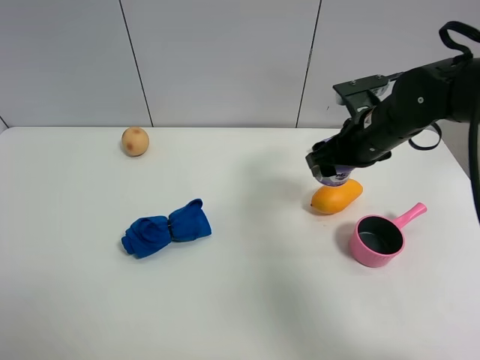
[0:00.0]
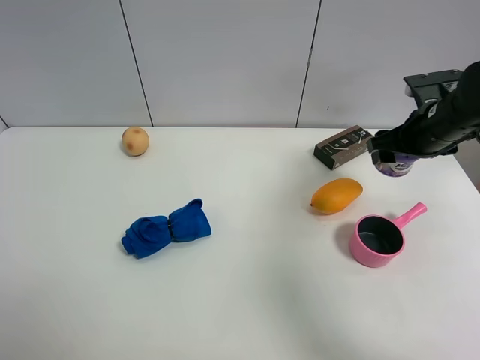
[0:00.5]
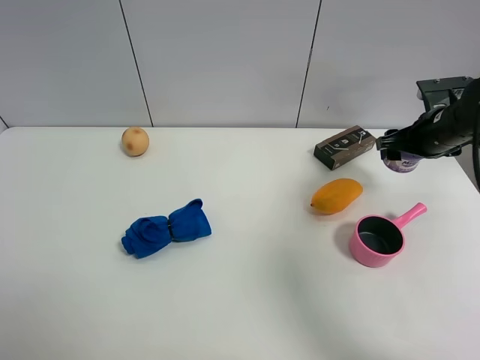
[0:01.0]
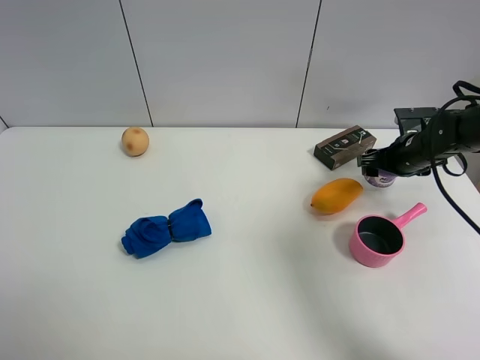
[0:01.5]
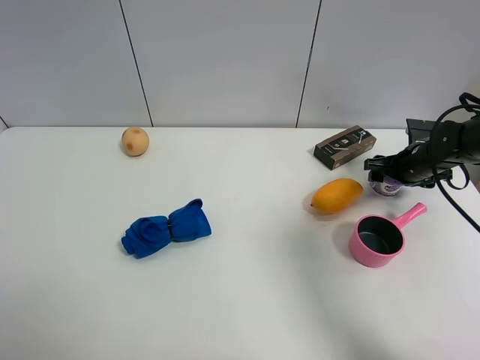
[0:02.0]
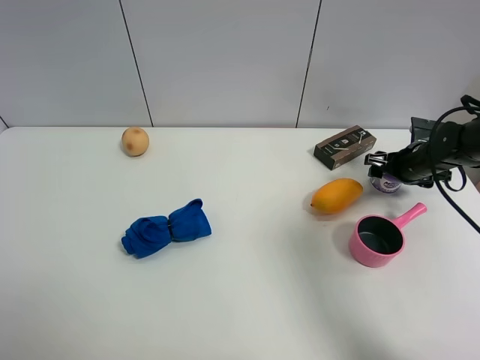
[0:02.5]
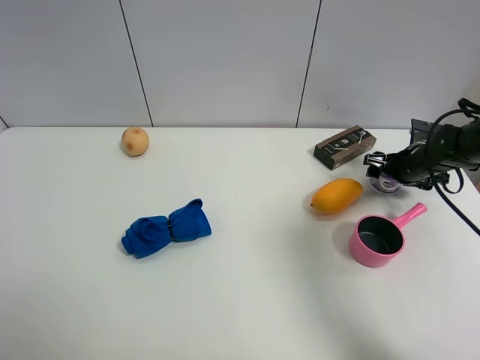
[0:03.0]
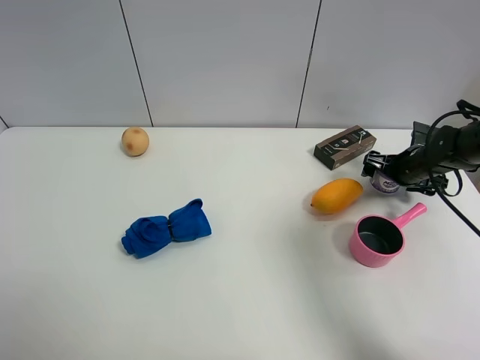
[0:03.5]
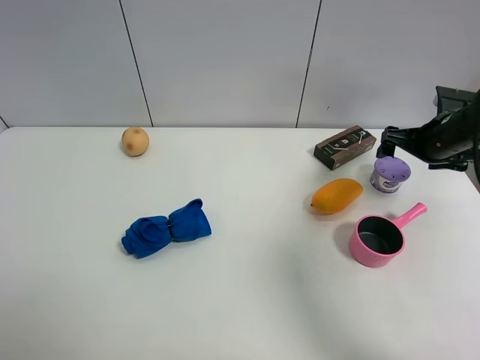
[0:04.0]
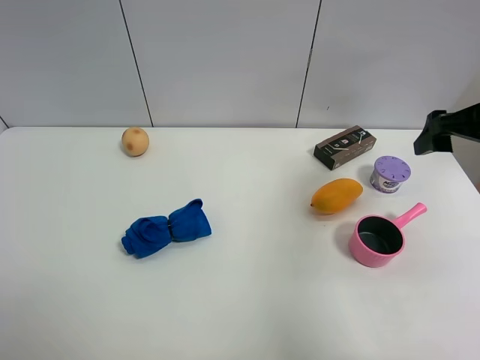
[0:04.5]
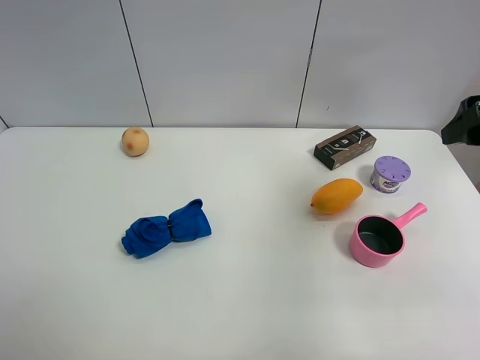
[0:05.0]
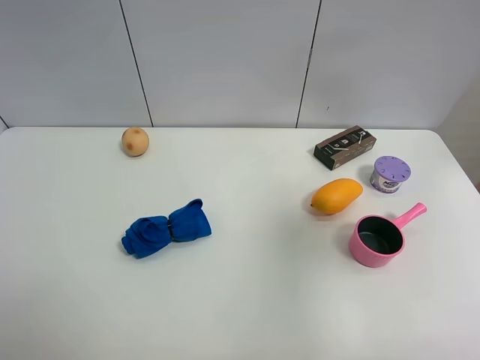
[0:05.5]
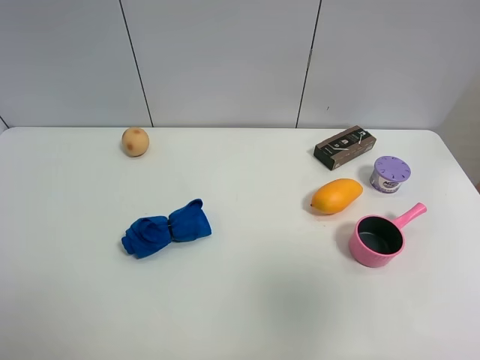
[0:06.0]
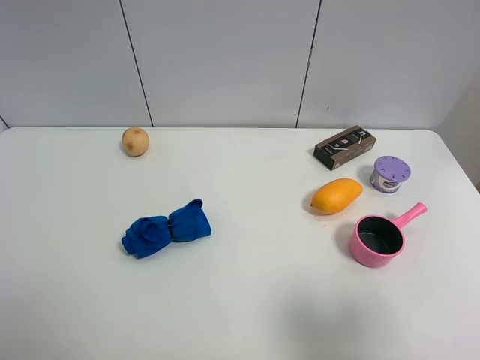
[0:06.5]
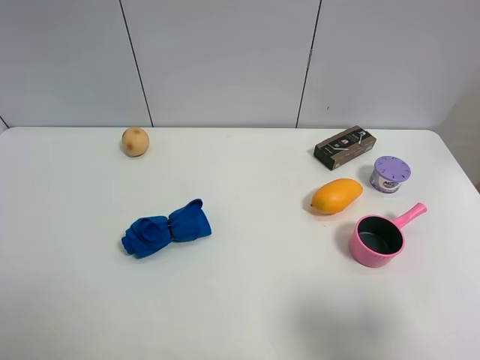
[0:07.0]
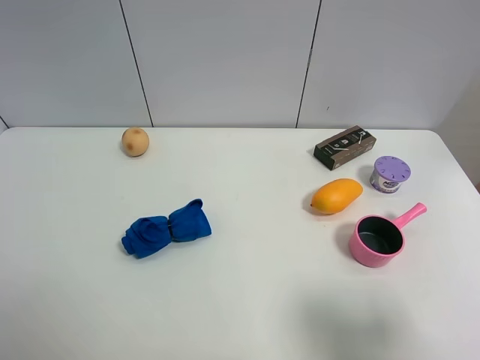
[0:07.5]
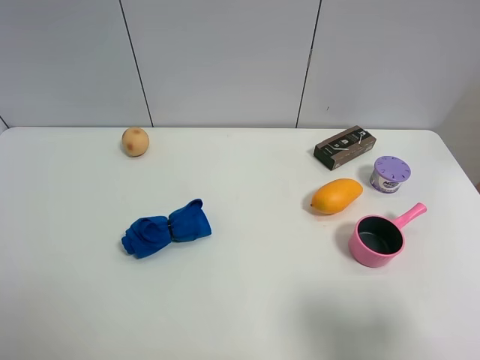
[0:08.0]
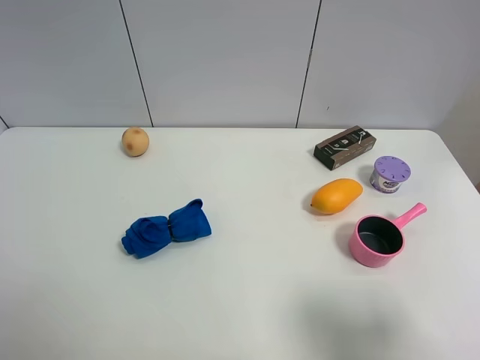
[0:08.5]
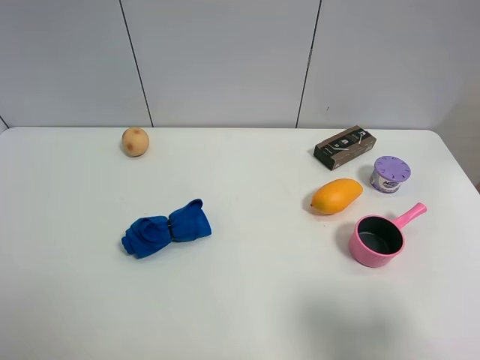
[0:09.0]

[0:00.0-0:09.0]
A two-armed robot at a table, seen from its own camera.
Task of the whole recording: the gripper move the object.
Step, 0:00.0 to 0:03.5: Place the Incense box on the table with the right gripper.
0:00.0 to 0:02.0: The right gripper shifts roughly 20 cm to the right, downward and forward.
0:02.0 to 0:04.5: The right gripper is displaced upward and backward by some 25 cm, and opens its fingers.
0:04.5 to 0:07.0: The right gripper moves backward, roughly 25 cm.

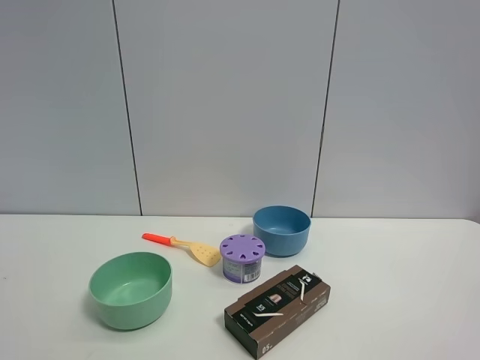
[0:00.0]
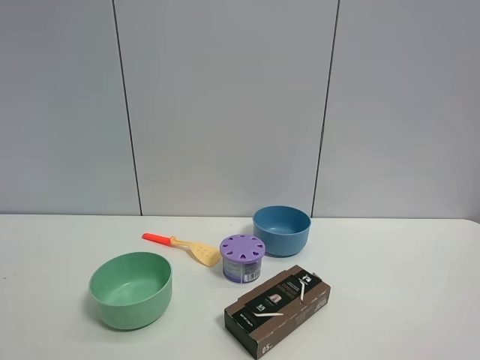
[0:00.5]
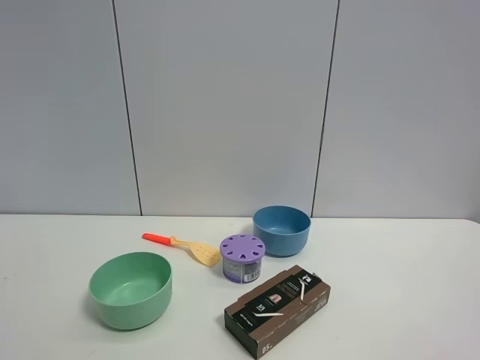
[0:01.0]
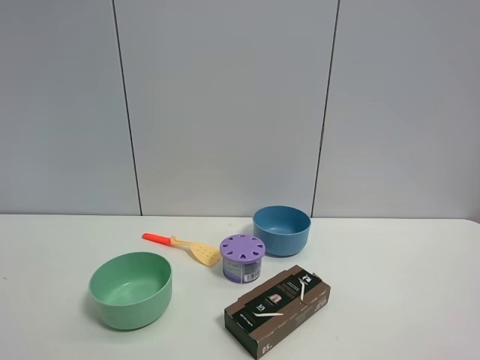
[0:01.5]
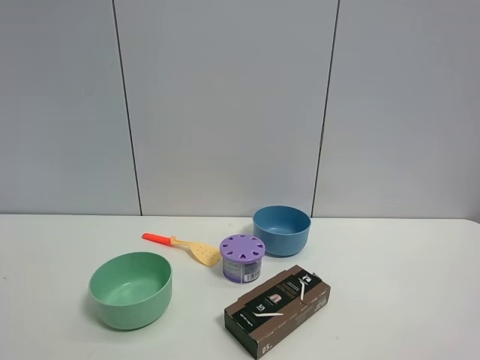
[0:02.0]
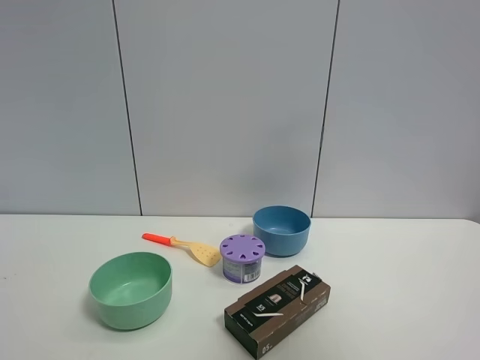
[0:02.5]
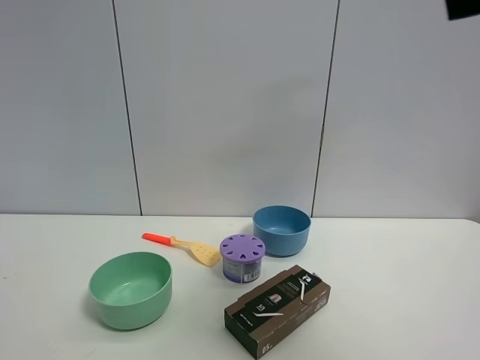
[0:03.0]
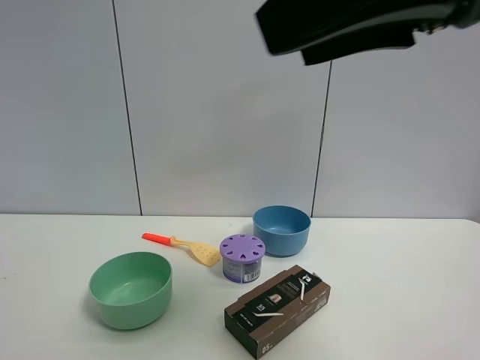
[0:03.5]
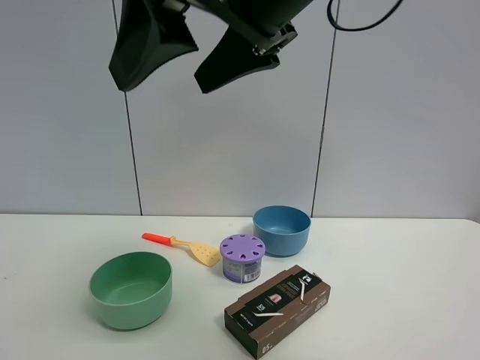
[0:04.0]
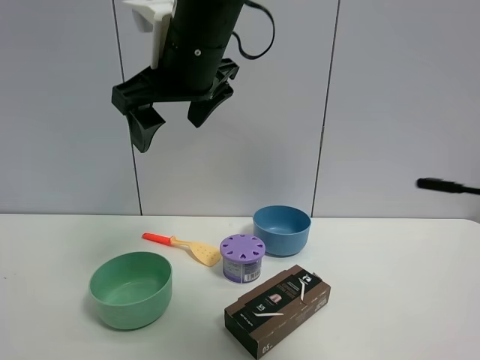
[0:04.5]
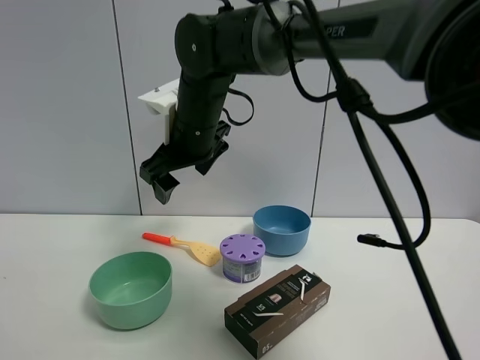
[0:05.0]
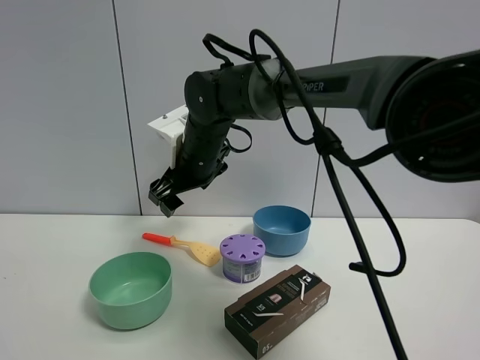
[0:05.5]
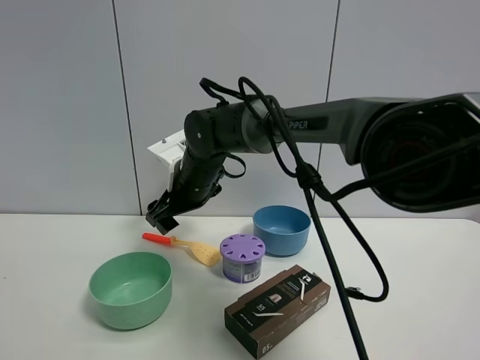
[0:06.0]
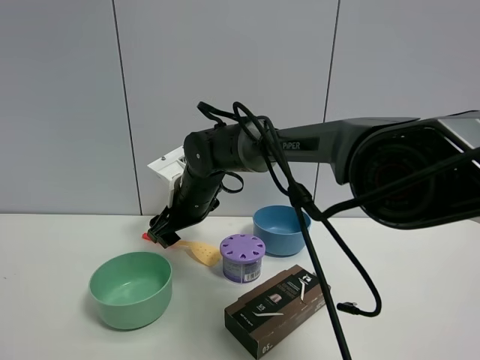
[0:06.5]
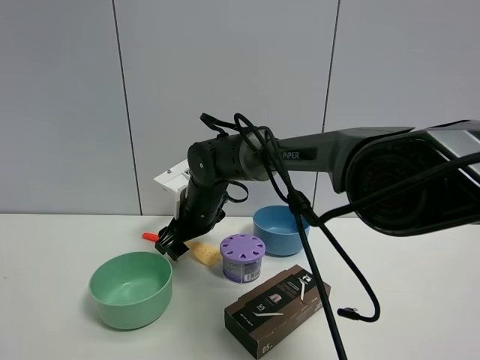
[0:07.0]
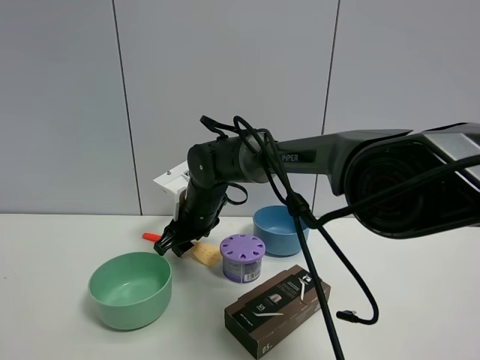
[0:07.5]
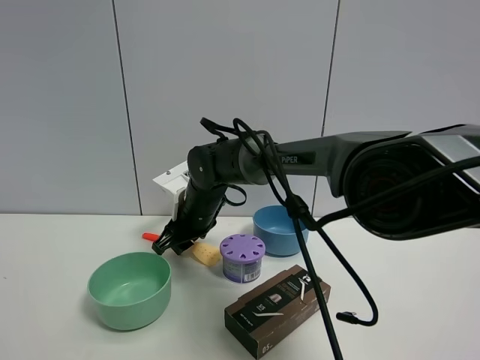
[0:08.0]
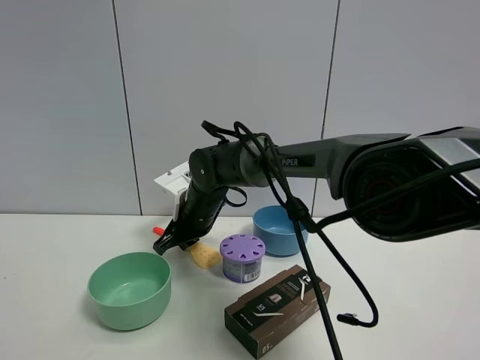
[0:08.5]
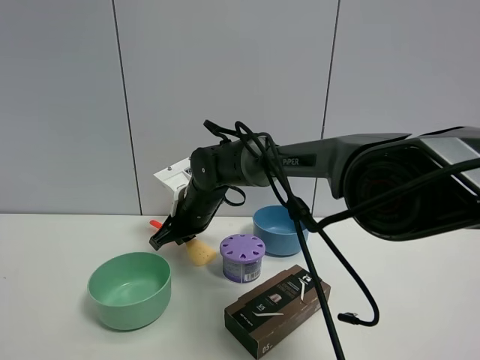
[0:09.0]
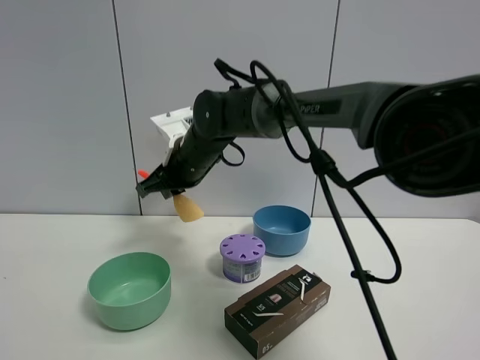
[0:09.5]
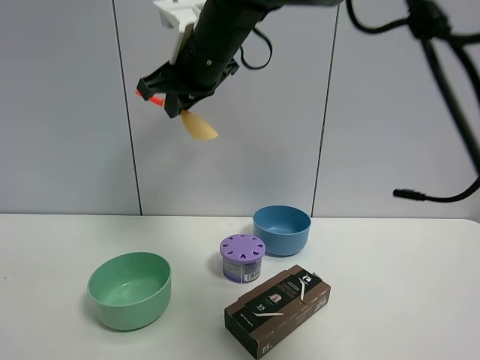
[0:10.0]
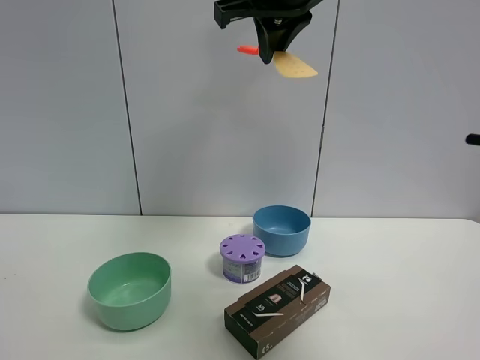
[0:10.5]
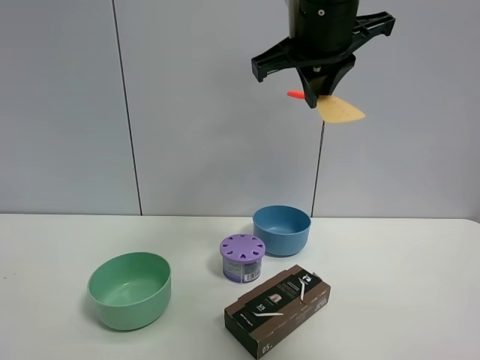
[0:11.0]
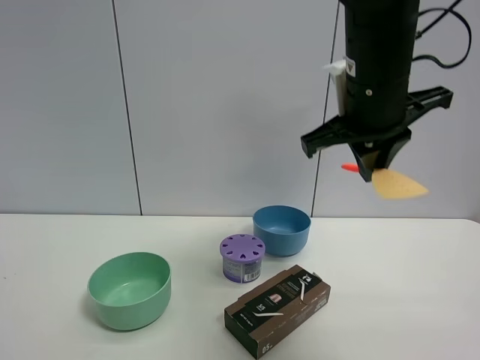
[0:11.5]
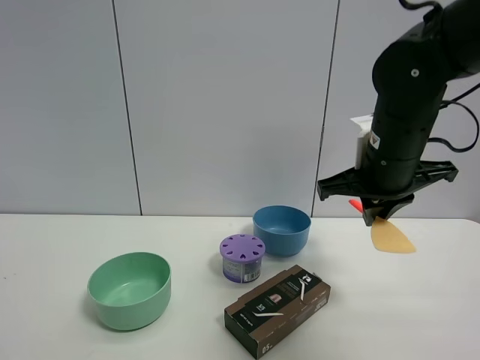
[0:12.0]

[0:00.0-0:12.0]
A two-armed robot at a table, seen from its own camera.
Task of the whole recording: the gripper move the object.
Step, 0:00.0 to 0:08.0: Grasp the cooking shovel with the right gripper.
0:02.0 to 0:04.0: The right gripper travels to the left and forward by some 35 cm.
0:04.0 to 0:06.0: The right gripper shifts roughly 30 cm downward, forward and to the left.
0:06.0 to 0:08.0: The right gripper closes.
0:08.0 to 0:10.0: The right gripper travels upward by about 25 cm, and closes up.
0:10.0 to 0:12.0: The right gripper heads to the right and downward, covering some 25 cm.

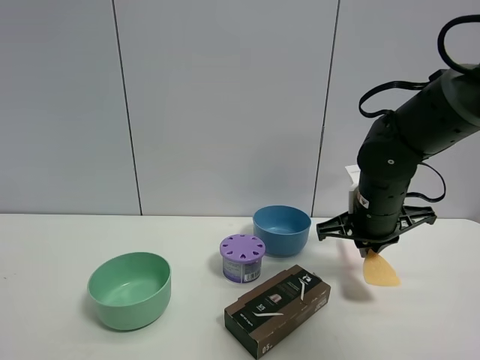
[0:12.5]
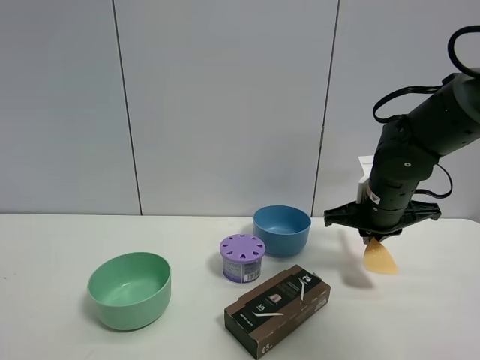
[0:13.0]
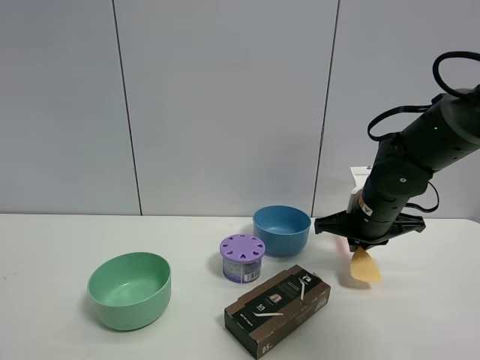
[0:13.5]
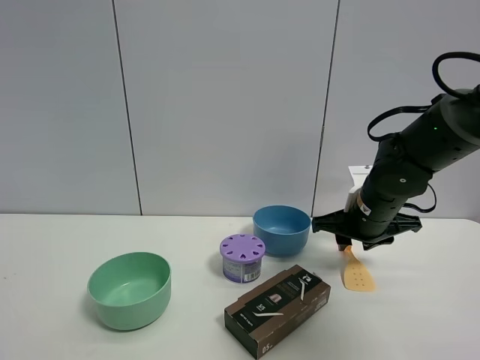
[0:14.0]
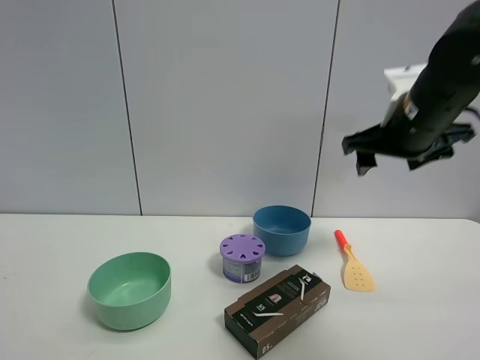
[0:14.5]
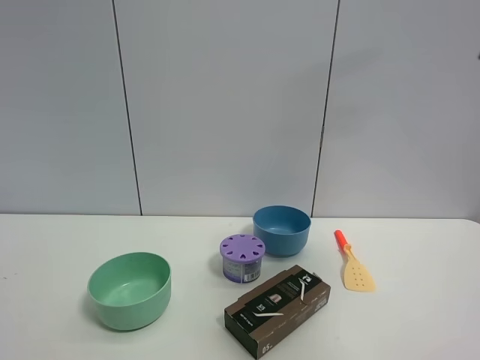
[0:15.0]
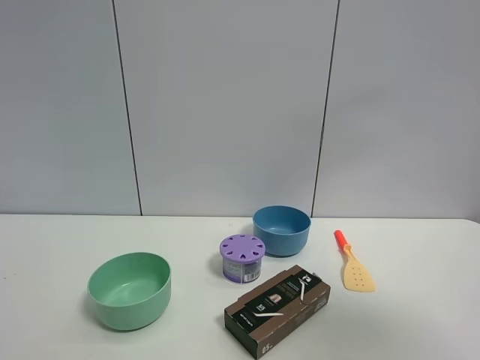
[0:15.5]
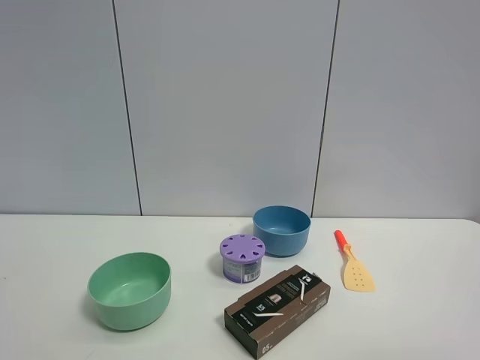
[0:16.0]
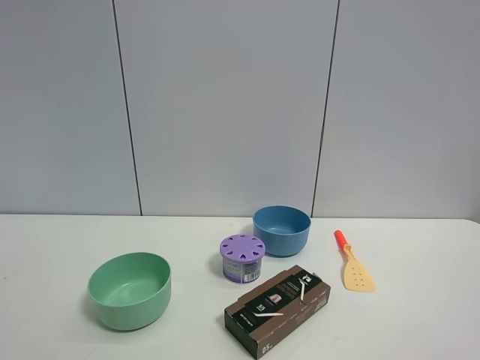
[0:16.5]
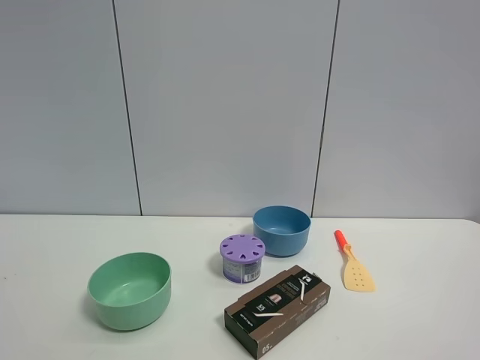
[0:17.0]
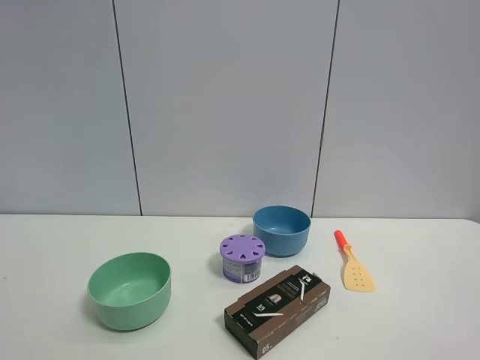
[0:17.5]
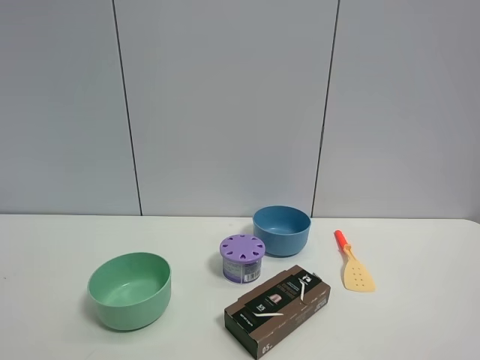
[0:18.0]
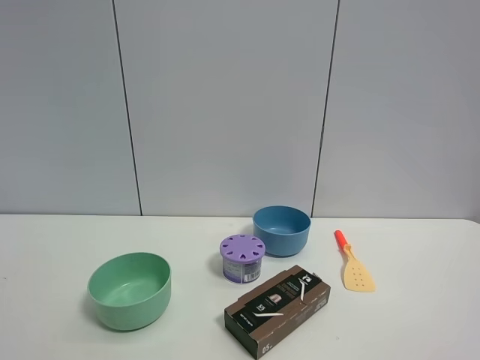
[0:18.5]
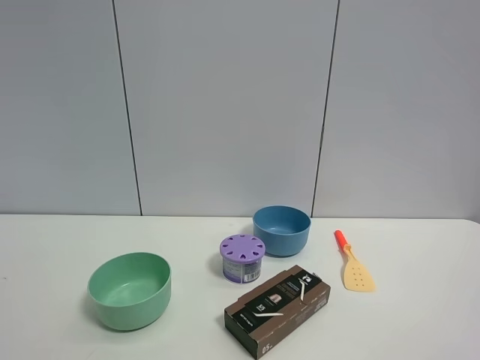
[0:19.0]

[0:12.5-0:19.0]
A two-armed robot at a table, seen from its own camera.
Task of the whole recording: the gripper move the object.
0:12.5 to 0:14.5: The right gripper moves upward, some 15 cm, and opens its fingers.
0:14.5 to 0:17.0: The right gripper heads backward, covering about 35 cm.
